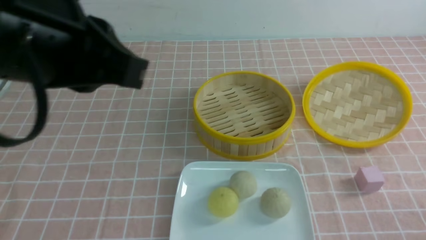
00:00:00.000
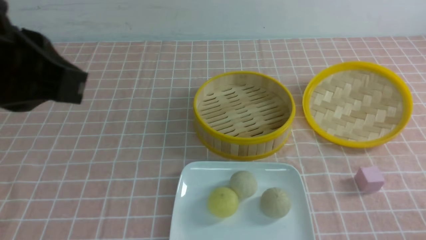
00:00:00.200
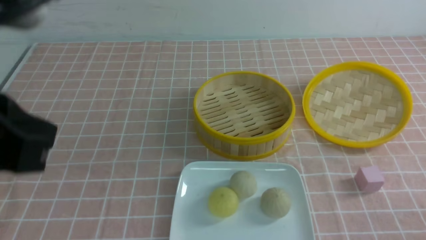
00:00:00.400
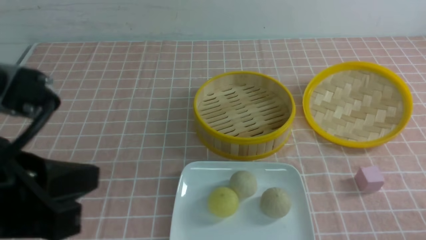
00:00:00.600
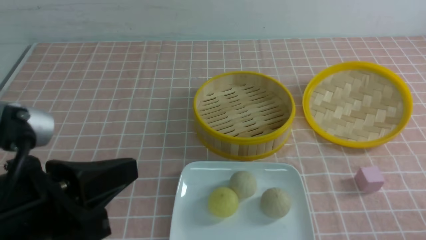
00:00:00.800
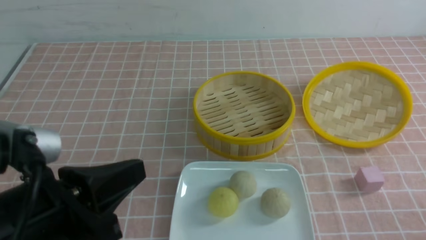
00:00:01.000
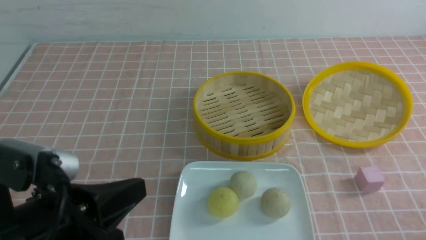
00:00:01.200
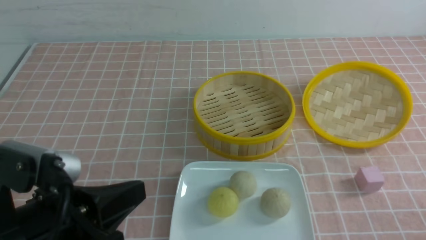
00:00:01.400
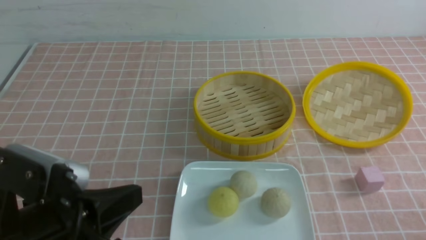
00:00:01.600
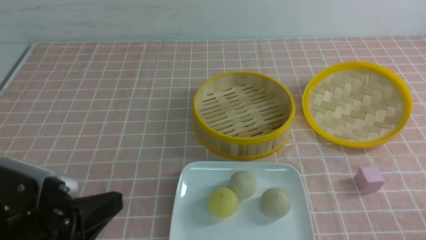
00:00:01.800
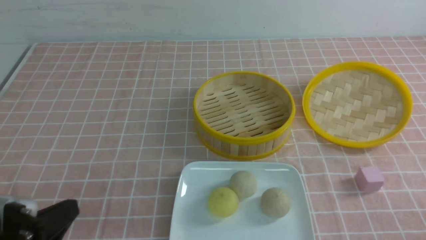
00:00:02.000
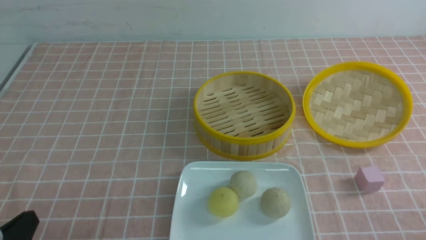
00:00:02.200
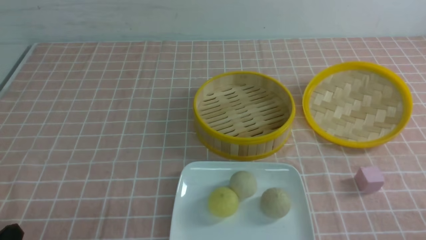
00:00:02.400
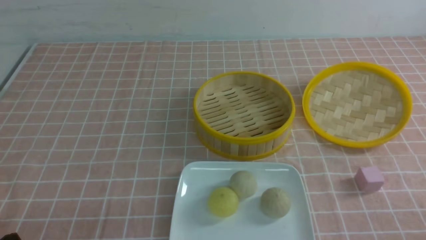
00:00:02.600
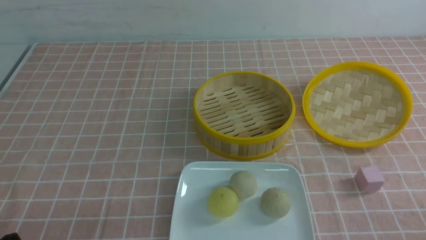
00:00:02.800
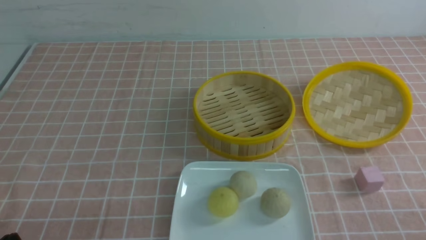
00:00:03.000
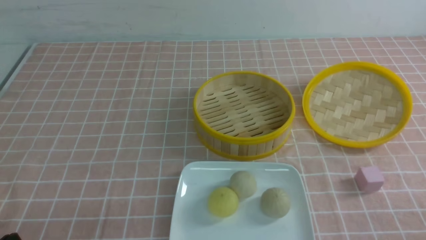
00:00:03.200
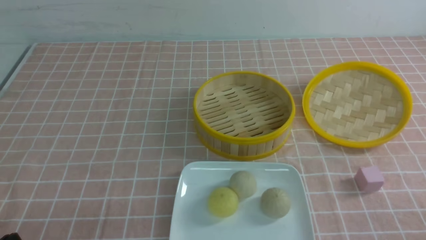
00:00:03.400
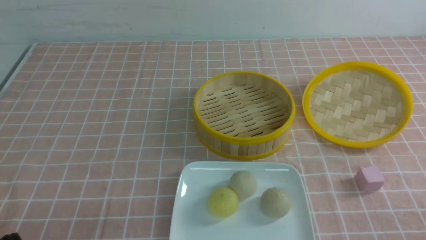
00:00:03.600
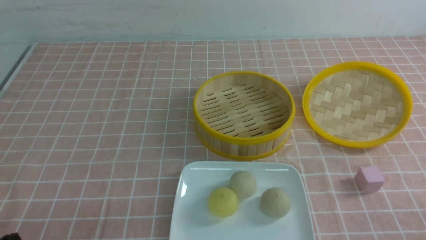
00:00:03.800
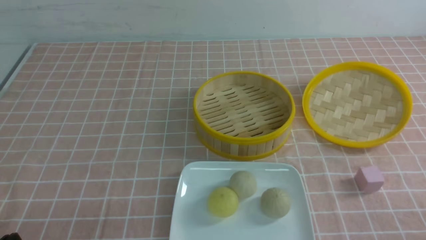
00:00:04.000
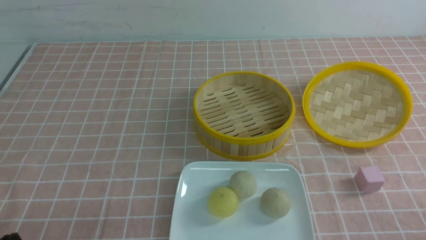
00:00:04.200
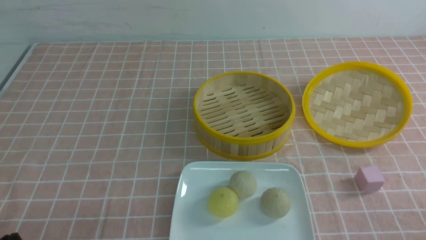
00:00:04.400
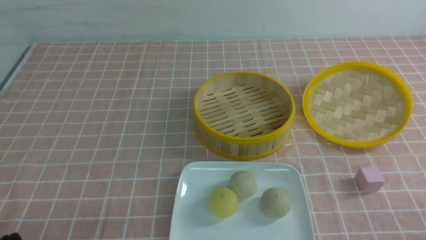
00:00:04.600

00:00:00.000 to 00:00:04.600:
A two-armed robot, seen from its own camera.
00:00:00.000 to 00:00:01.600: The left gripper moves downward, some 15 cm.
00:00:01.600 to 00:00:03.000: The left gripper heads downward and to the left, covering some 15 cm.
00:00:03.000 to 00:00:04.600: Both grippers stay about where they are.

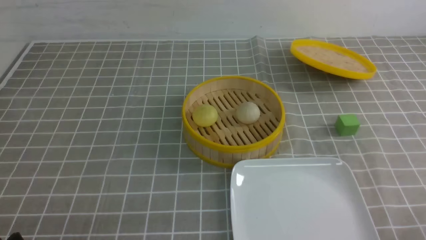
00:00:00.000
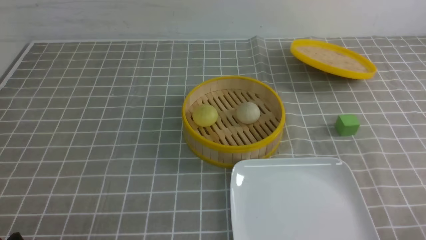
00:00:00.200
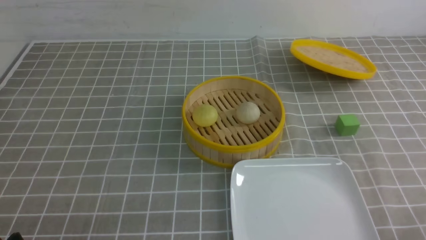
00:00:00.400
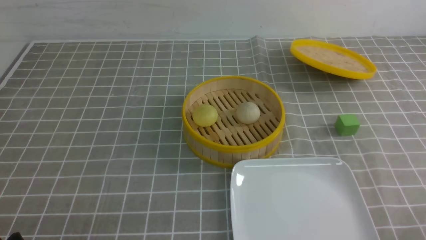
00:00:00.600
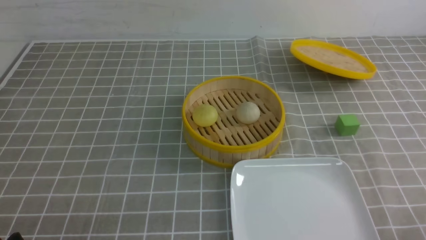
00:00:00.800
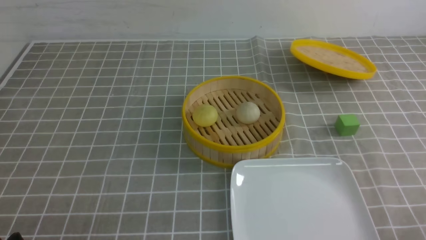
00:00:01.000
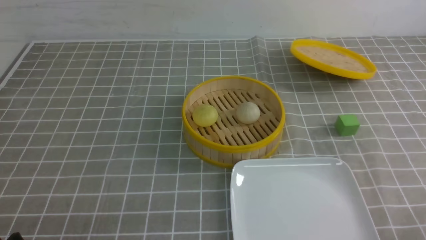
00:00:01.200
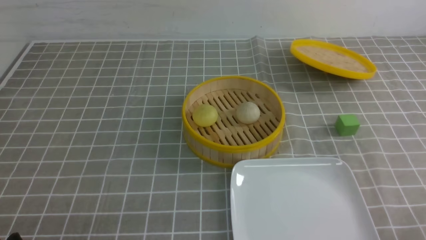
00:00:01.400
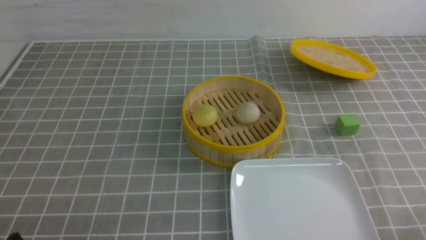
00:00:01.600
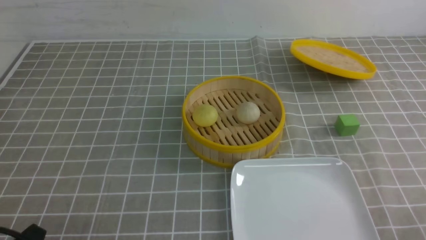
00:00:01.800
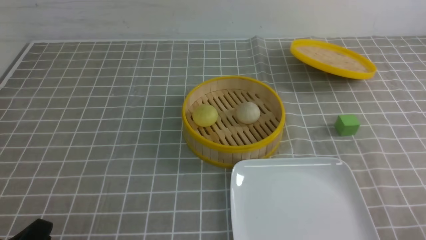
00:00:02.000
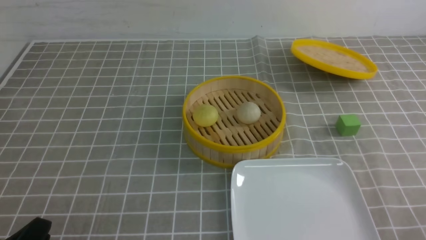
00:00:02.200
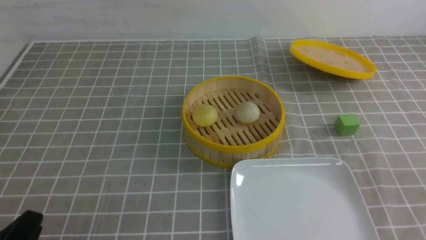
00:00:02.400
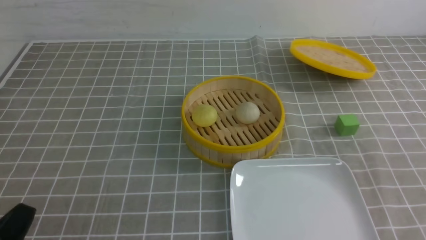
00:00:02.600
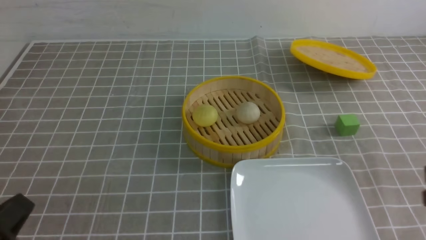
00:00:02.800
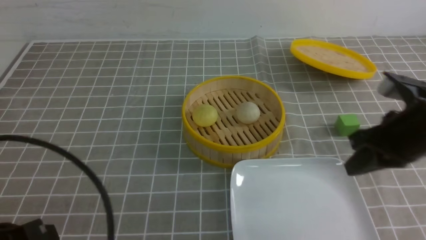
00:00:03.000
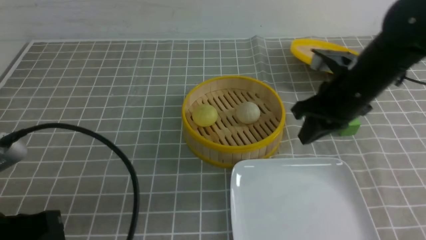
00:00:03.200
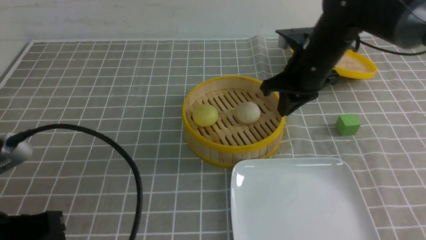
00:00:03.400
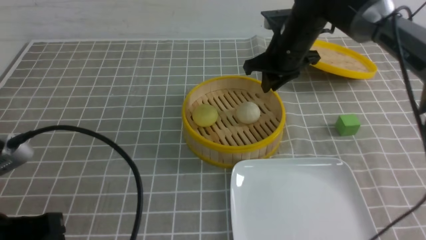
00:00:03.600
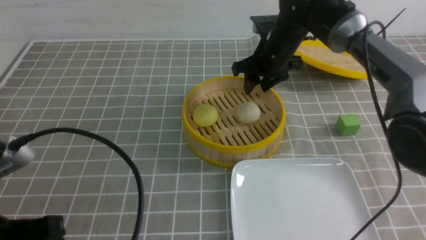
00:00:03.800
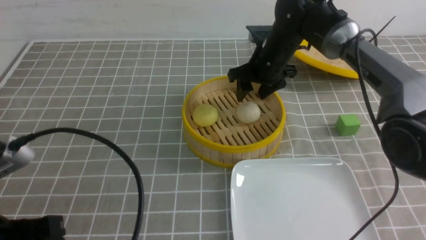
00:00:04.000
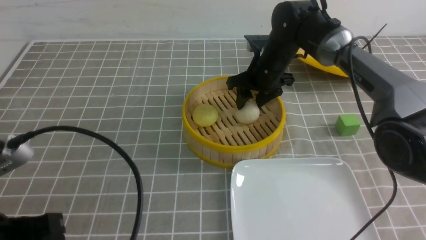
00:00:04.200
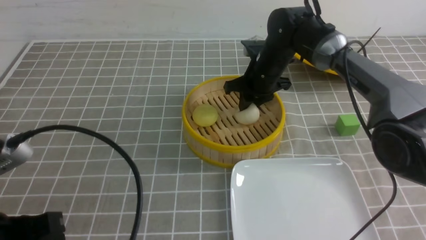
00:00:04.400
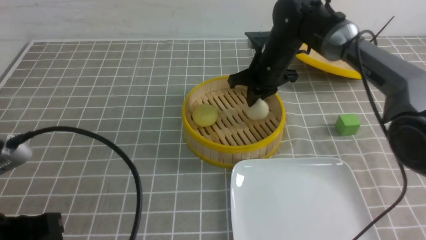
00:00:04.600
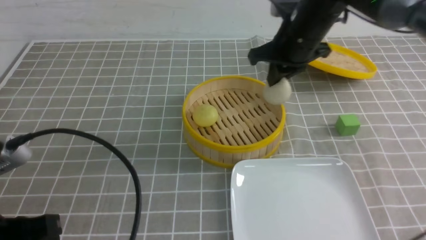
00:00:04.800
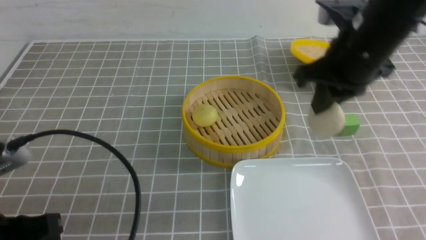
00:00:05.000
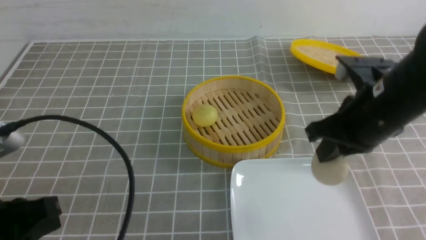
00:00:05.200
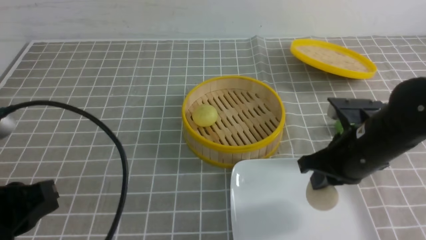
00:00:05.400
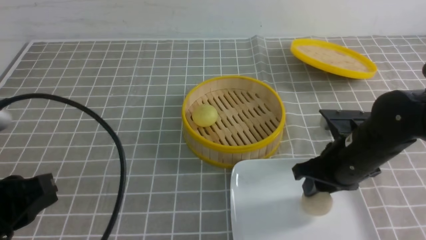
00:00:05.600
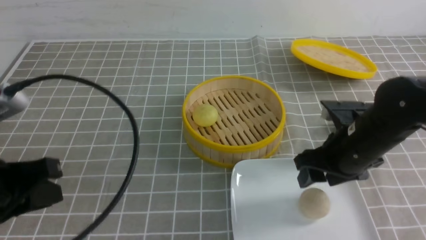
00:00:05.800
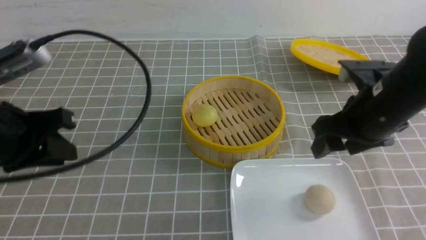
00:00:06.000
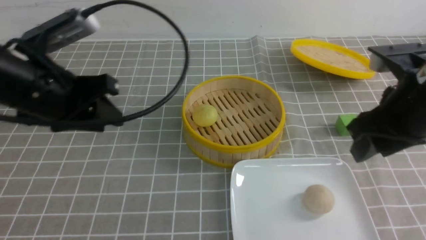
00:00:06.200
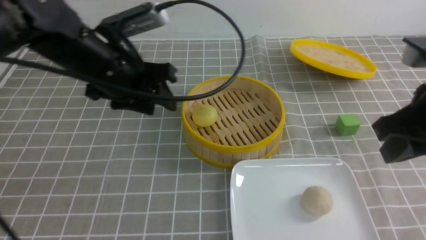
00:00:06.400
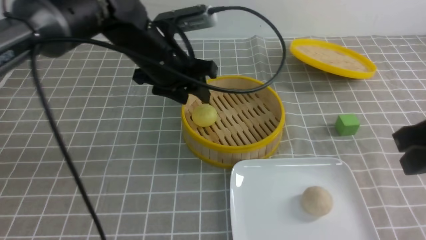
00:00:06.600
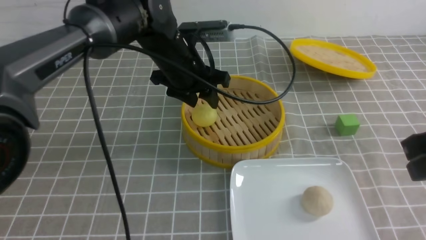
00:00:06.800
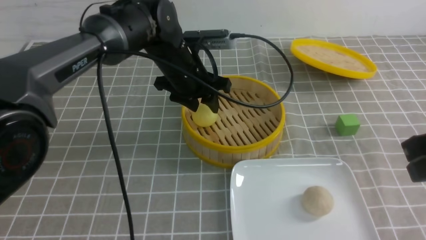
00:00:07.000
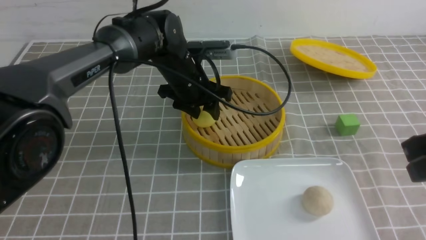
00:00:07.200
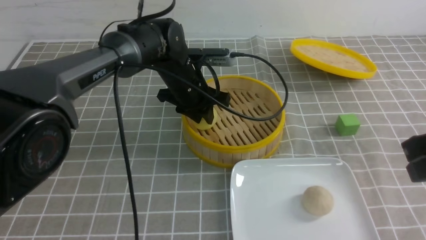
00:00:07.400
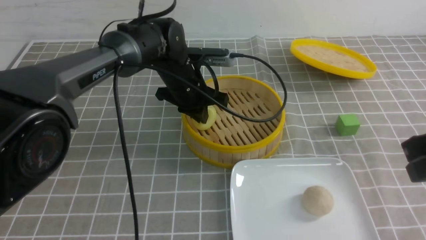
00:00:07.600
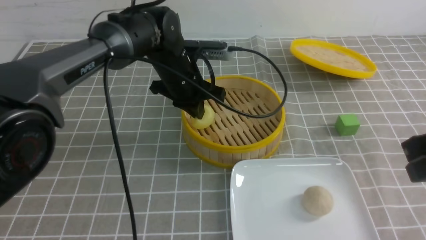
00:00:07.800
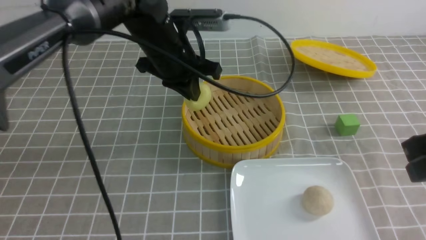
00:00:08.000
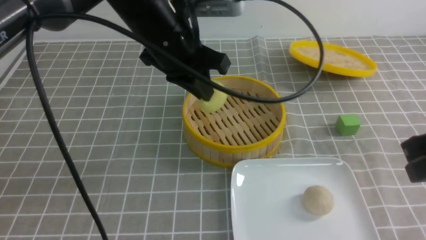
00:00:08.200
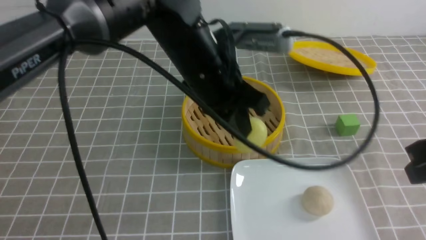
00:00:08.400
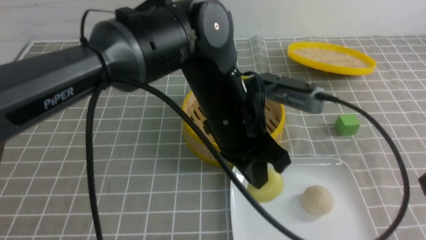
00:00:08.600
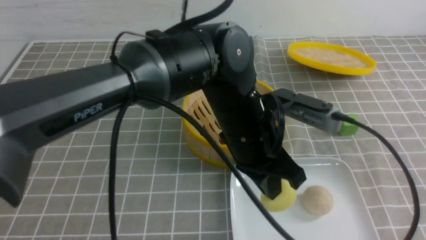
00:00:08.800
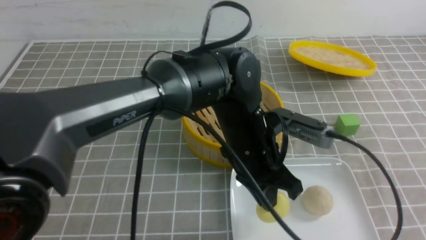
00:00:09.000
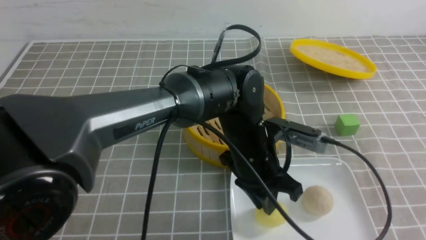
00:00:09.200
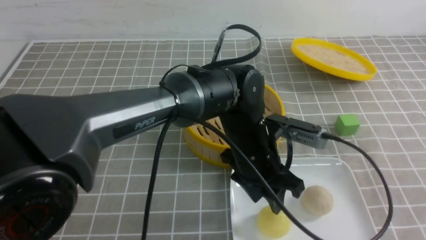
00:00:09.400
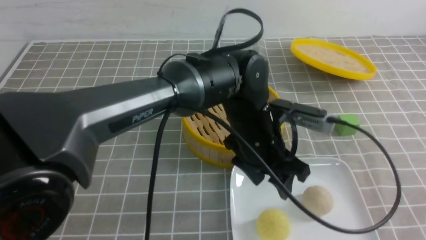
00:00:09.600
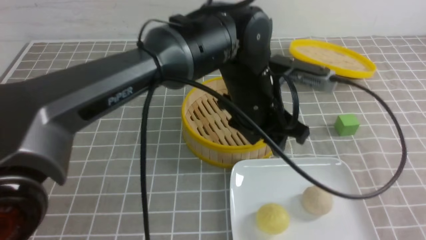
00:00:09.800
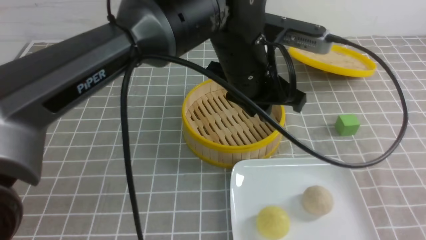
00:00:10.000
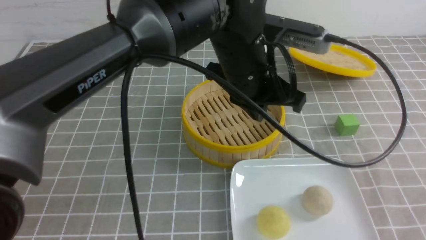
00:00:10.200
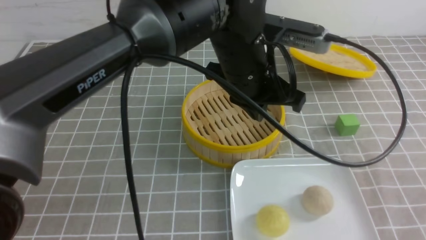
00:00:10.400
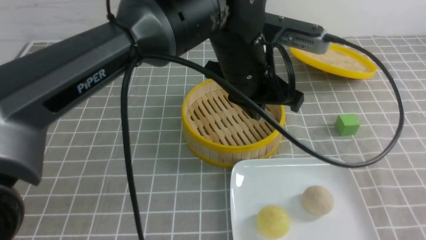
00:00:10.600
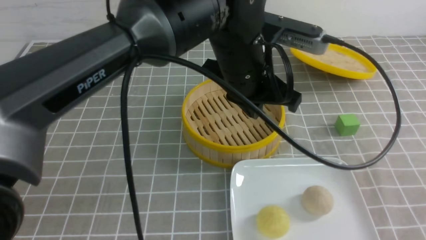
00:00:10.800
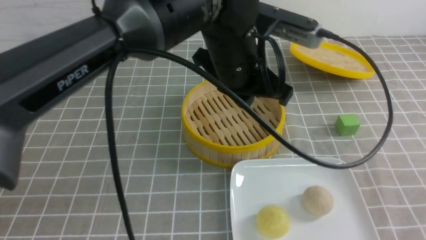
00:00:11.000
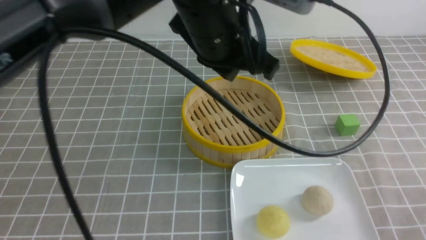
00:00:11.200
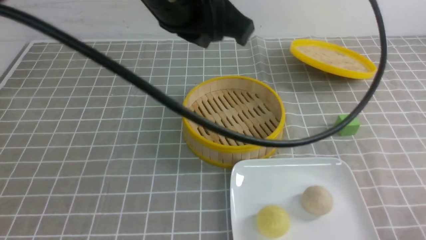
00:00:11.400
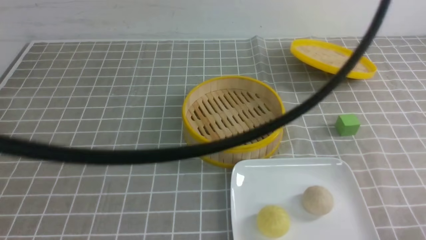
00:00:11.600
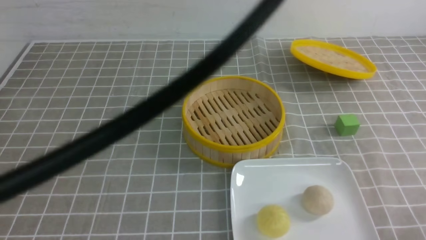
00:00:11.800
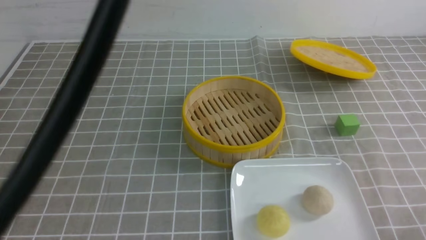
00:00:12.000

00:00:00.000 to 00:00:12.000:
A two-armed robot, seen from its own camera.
Step, 00:00:00.000 to 00:00:04.600: use the right arm to grab the steamed stuffed bun that is closest to it.
Step, 00:00:04.800 to 00:00:05.600: use the right arm to put the steamed stuffed bun into the plate.
Step, 00:00:05.800 to 00:00:07.800: use the left arm to grab the steamed stuffed bun that is closest to it.
Step, 00:00:08.000 to 00:00:09.200: use the left arm to put the steamed stuffed bun into the plate.
00:00:01.600 to 00:00:03.000: The left gripper goes about 10 cm upward, and closes its fingers. The right gripper moves forward, upward and to the left, roughly 25 cm, and closes its fingers.
00:00:03.000 to 00:00:04.400: The right gripper is displaced forward and to the left by roughly 25 cm, and opens.
00:00:04.400 to 00:00:06.000: The left gripper goes roughly 10 cm forward and upward, and opens its fingers; the right gripper is displaced backward and to the right by some 25 cm, and opens its fingers.
00:00:06.000 to 00:00:07.600: The left gripper is displaced forward, to the right and downward by some 30 cm, and opens, then closes once more. Meanwhile the right gripper shifts approximately 10 cm backward and upward, and closes.
00:00:07.600 to 00:00:09.000: The left gripper moves backward and to the right, roughly 20 cm. The right gripper moves backward, approximately 10 cm.
00:00:09.000 to 00:00:10.400: The left gripper goes about 10 cm upward, and opens, then closes again; the right gripper shifts some 5 cm backward.
00:00:10.400 to 00:00:12.000: The left gripper travels to the left, backward and upward by about 35 cm. Meanwhile the right gripper goes approximately 15 cm downward.
